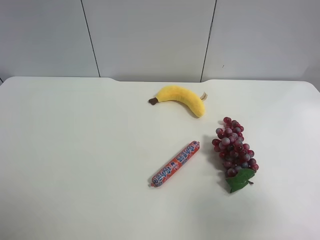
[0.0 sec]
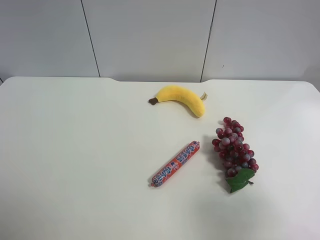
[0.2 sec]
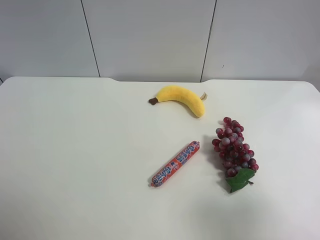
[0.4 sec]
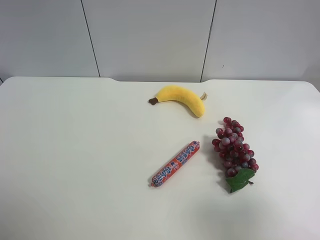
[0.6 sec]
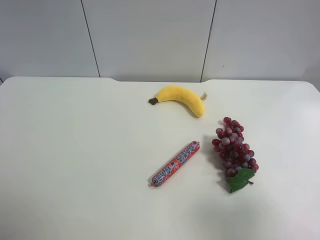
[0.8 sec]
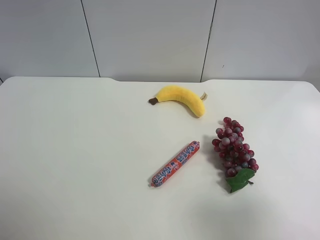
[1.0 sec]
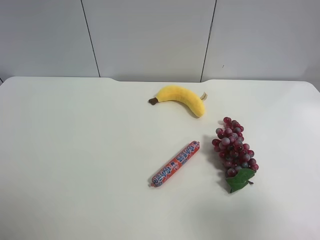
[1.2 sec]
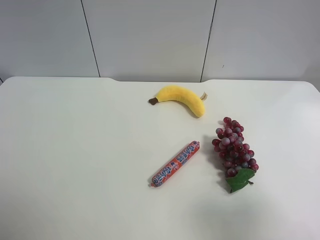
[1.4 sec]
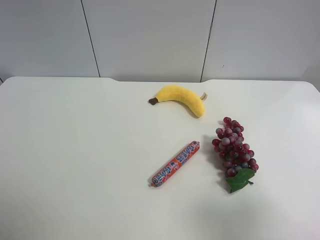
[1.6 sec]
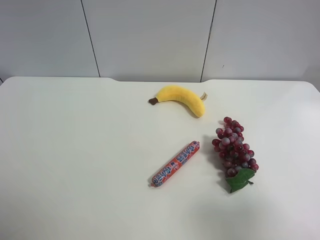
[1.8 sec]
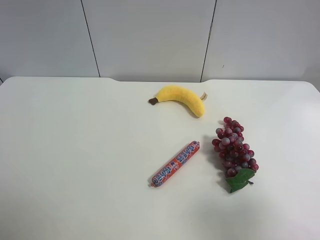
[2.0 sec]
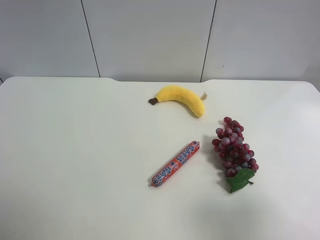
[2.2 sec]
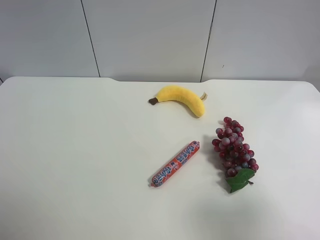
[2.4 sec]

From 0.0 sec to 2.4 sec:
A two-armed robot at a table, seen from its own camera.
Task of the whole recording: use the left gripper to pick up the item and transfer it from the left gripper to the right gripper.
From 1.2 sec to 2.4 sec: Both grippers stay put.
